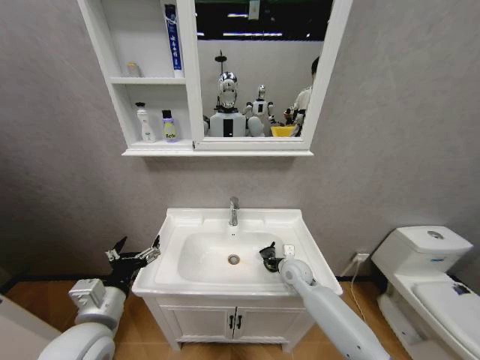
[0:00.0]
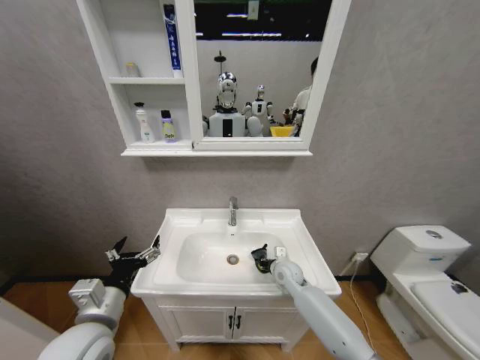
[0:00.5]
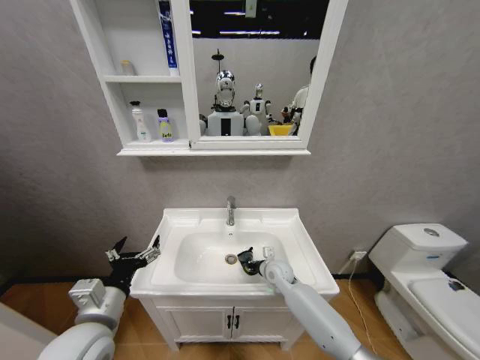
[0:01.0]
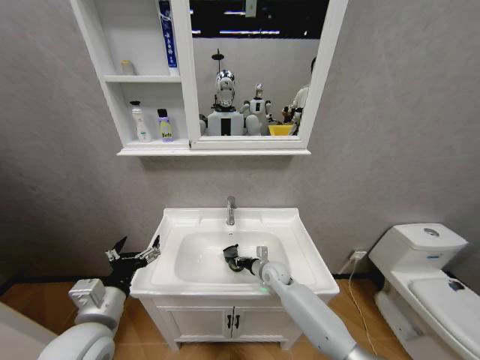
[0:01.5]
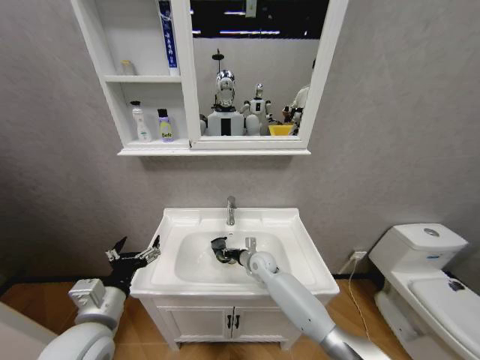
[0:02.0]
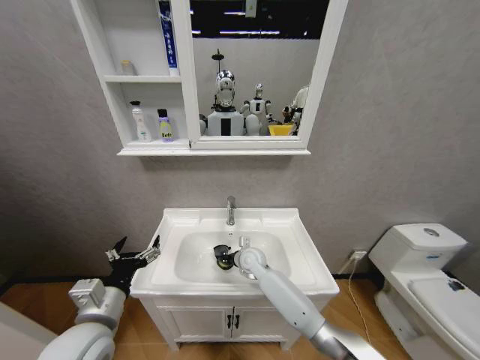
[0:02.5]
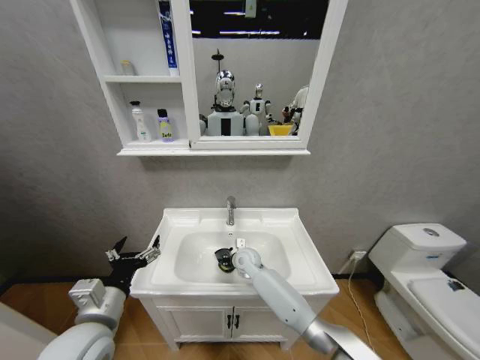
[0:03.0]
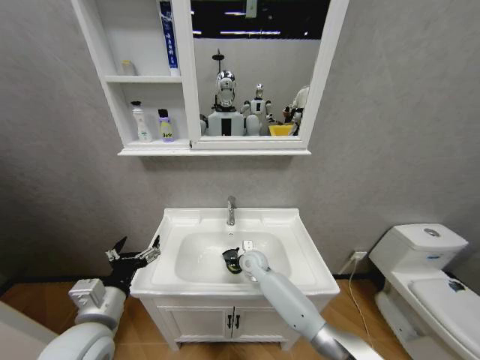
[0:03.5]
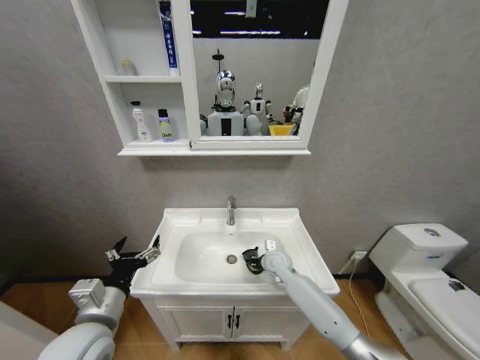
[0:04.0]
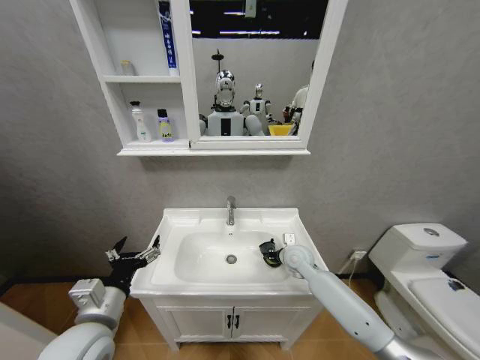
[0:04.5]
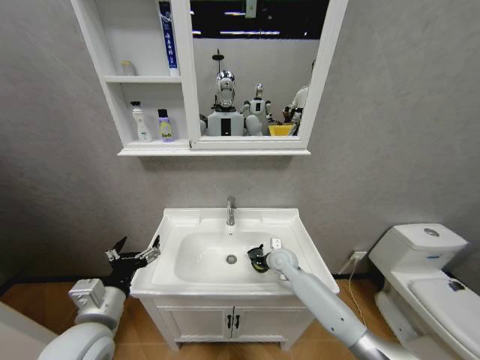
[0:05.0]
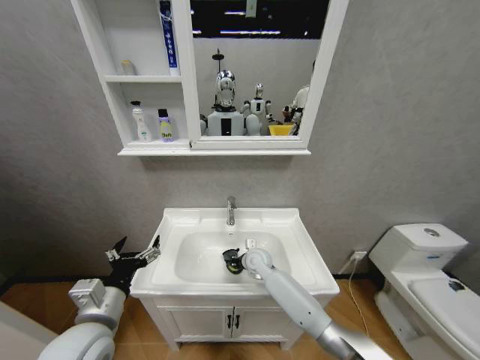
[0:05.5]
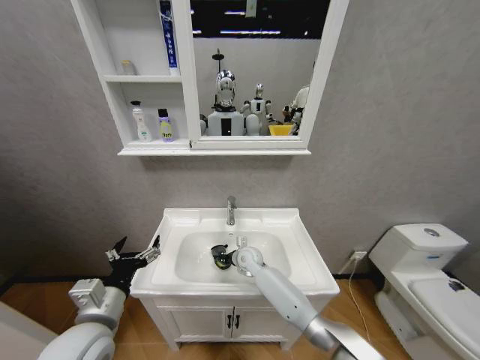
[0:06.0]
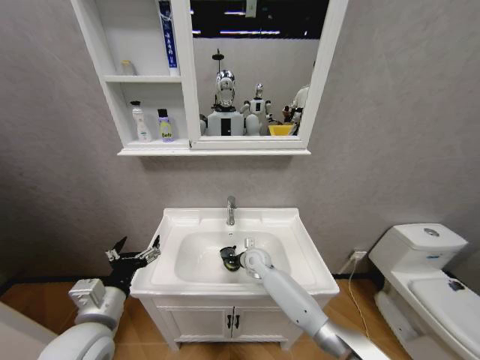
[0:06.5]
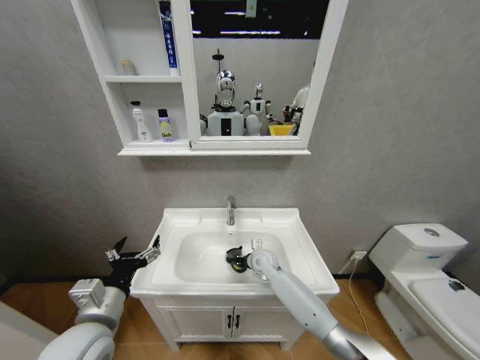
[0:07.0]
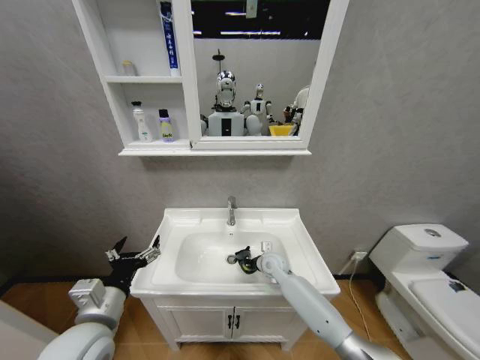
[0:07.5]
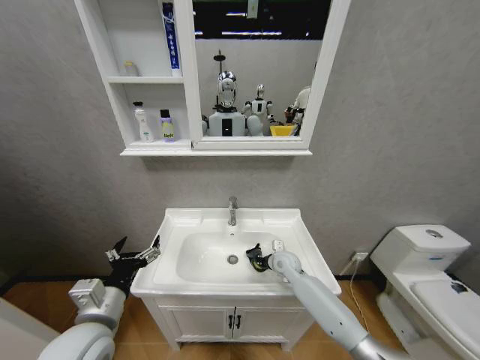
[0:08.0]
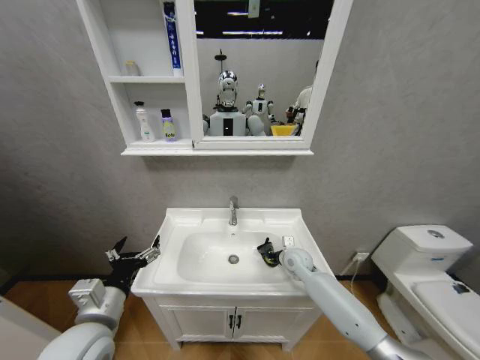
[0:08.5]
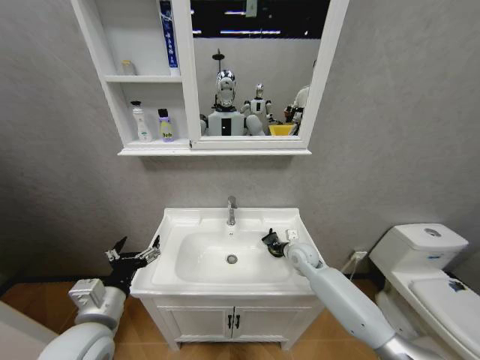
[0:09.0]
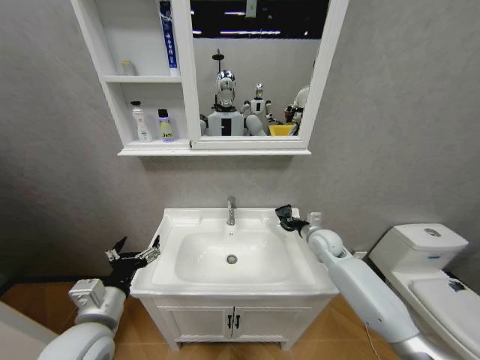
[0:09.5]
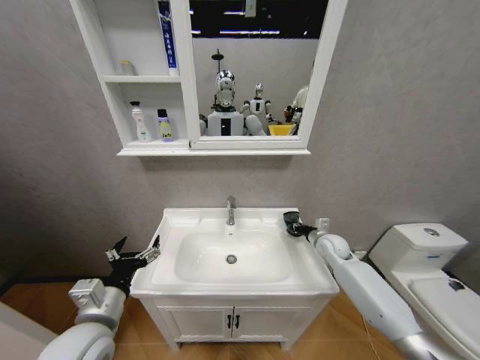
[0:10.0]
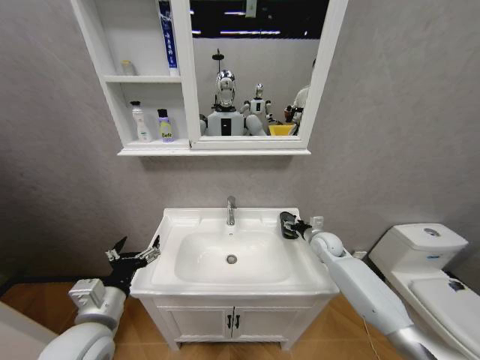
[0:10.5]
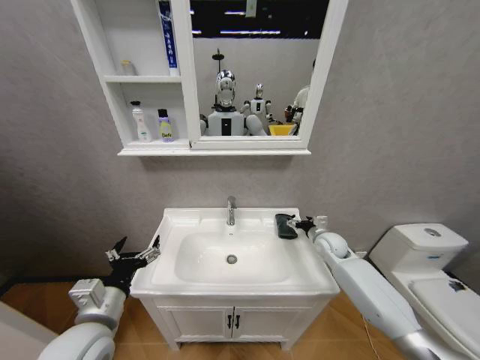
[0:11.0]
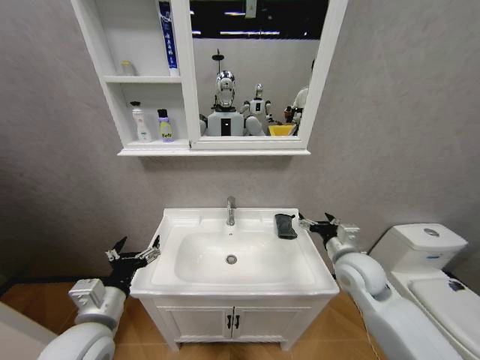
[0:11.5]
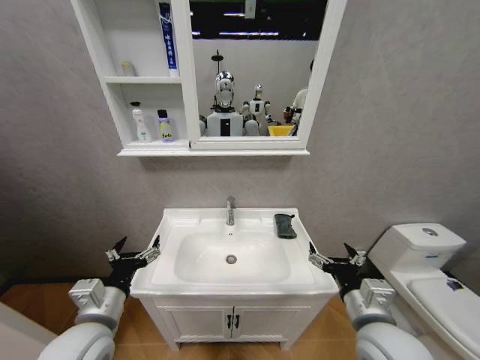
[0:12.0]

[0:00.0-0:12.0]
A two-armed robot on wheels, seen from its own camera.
Task of the whole recording: Move facial cleanser and shampoo from washbasin to cabinet, then wipe washbasin with towel.
0:00.0 to 0:02.0: The right gripper is displaced to the left and forward by about 10 cm.
0:02.0 to 0:04.0: The right gripper is displaced to the right by about 5 cm.
0:04.0 to 0:06.0: The right gripper goes about 10 cm to the left.
0:06.0 to 0:08.0: The right gripper shifts approximately 15 cm to the right.
0:08.0 to 0:10.0: The right gripper heads to the right and upward, covering some 15 cm.
0:10.0 to 0:12.0: The right gripper shifts roughly 30 cm backward, and opens up.

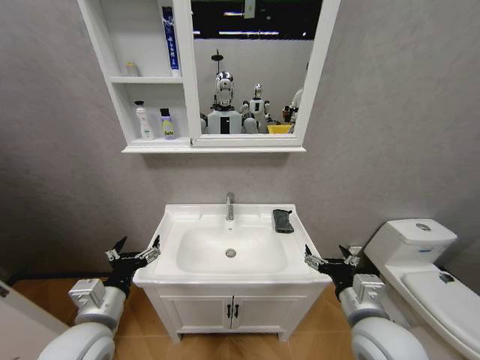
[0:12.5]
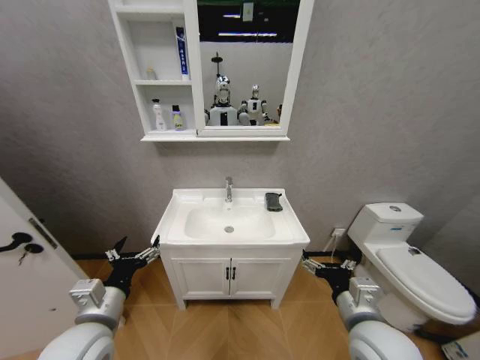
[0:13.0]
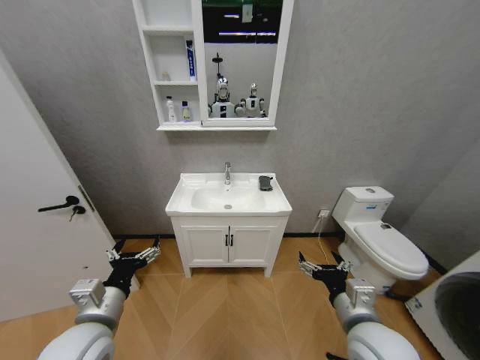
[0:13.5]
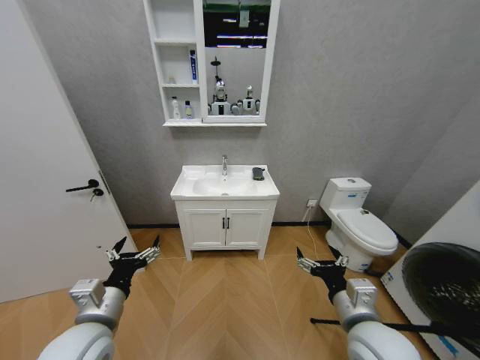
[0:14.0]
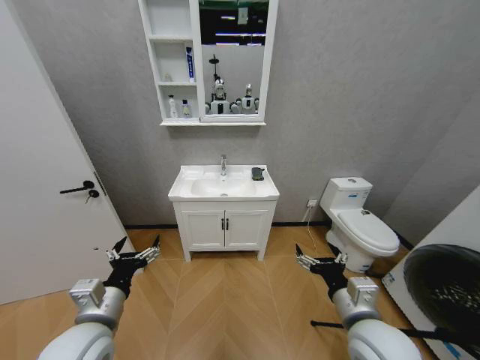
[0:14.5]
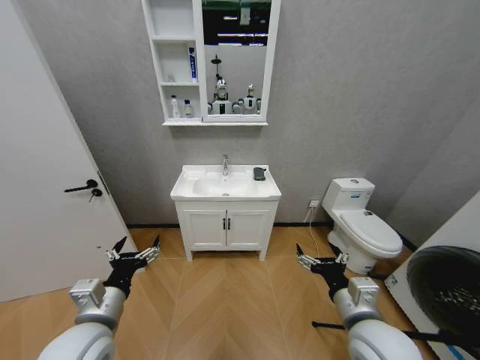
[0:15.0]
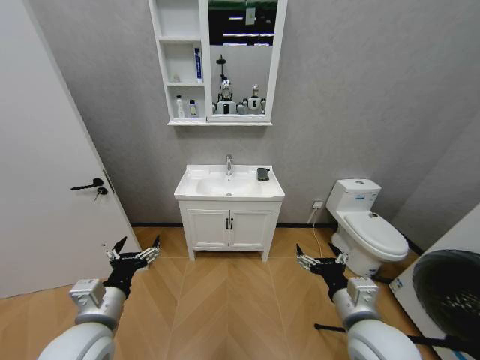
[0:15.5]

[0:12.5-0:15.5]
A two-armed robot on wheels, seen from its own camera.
Task of the whole recording: Move facial cleanser and shampoo from washbasin to cabinet, then wipe washbasin with towel.
0:14.0 to 0:15.5: Neither gripper changes place.
